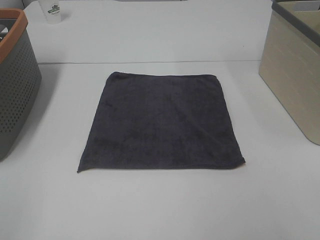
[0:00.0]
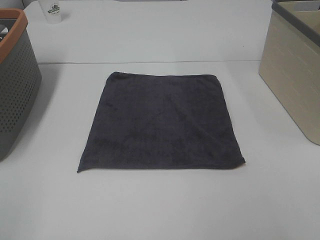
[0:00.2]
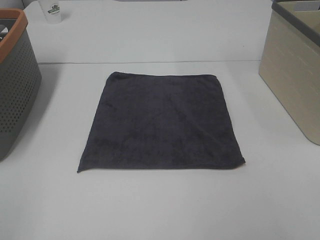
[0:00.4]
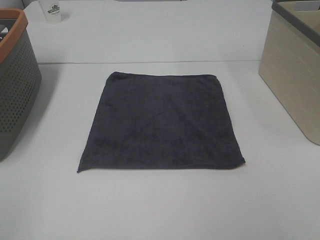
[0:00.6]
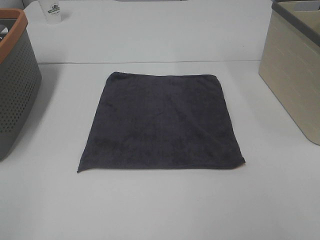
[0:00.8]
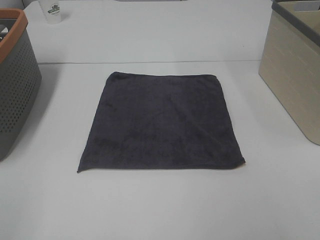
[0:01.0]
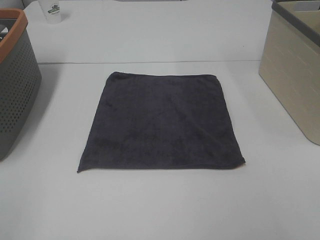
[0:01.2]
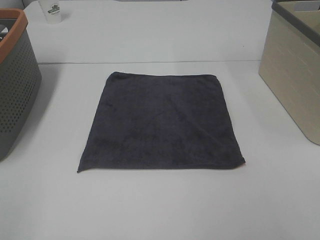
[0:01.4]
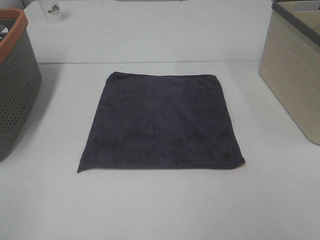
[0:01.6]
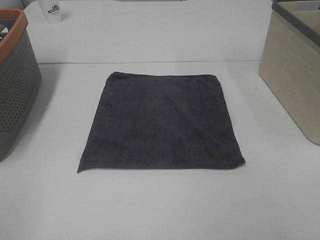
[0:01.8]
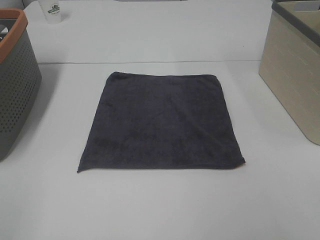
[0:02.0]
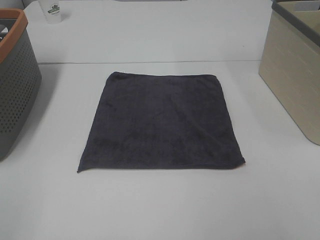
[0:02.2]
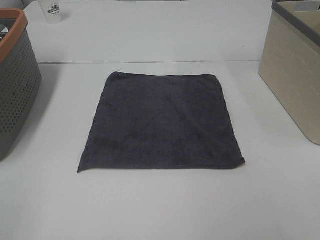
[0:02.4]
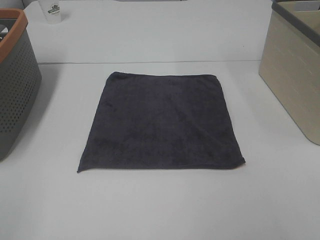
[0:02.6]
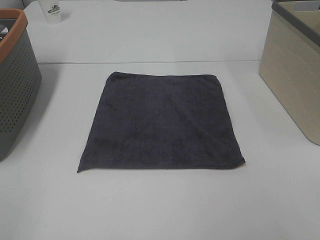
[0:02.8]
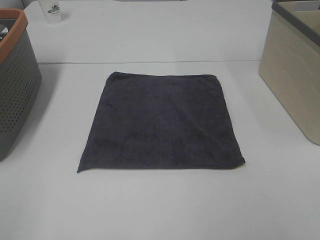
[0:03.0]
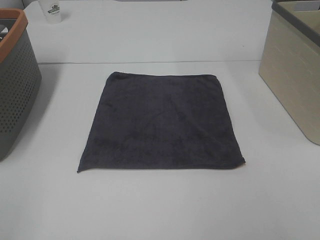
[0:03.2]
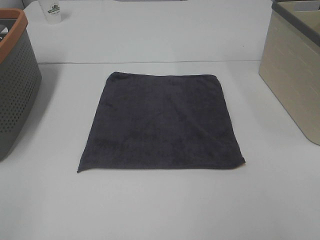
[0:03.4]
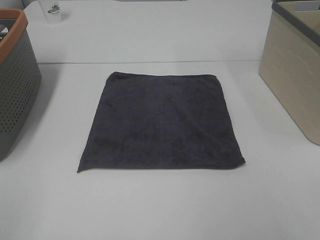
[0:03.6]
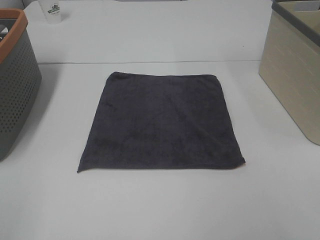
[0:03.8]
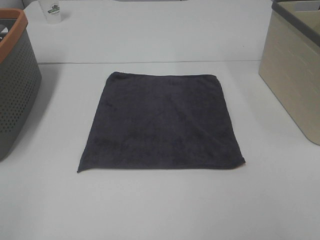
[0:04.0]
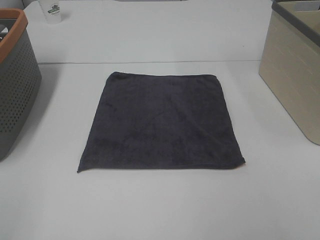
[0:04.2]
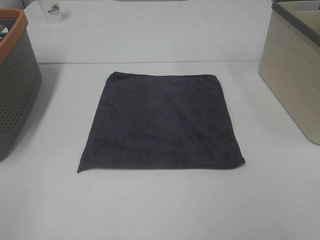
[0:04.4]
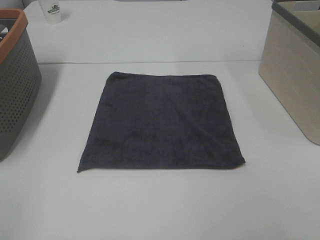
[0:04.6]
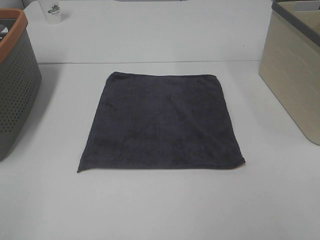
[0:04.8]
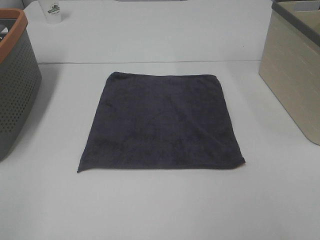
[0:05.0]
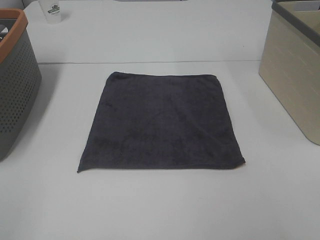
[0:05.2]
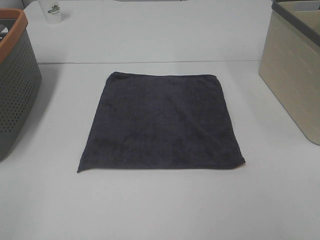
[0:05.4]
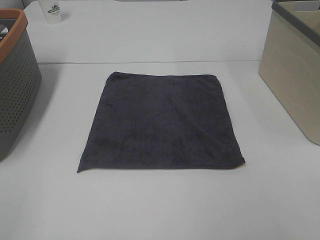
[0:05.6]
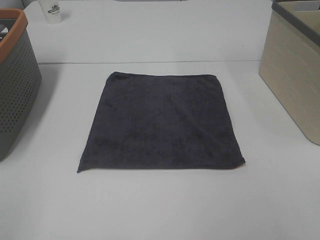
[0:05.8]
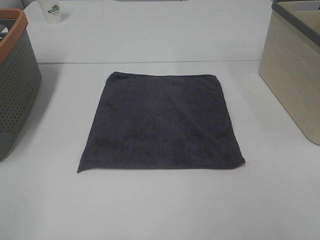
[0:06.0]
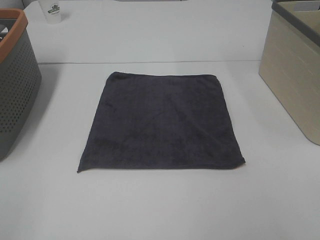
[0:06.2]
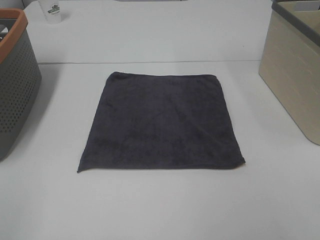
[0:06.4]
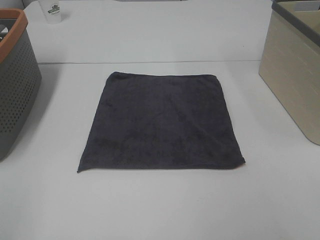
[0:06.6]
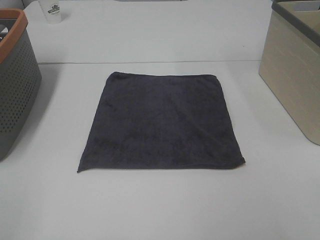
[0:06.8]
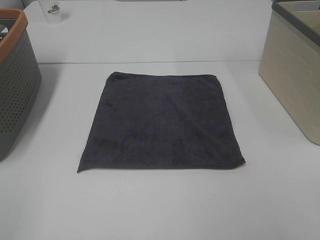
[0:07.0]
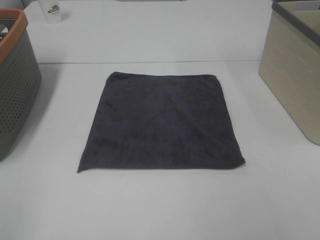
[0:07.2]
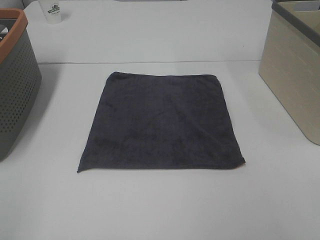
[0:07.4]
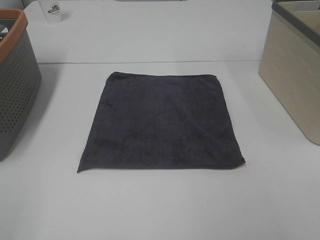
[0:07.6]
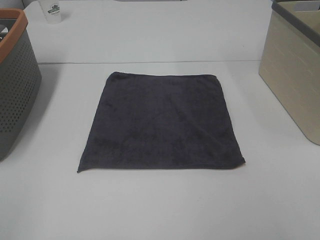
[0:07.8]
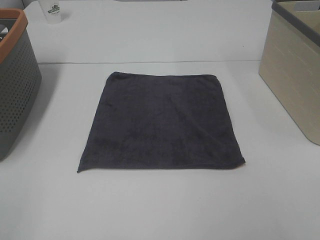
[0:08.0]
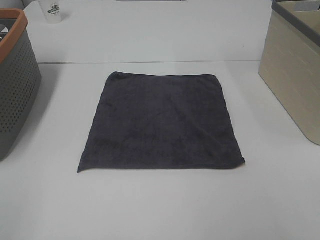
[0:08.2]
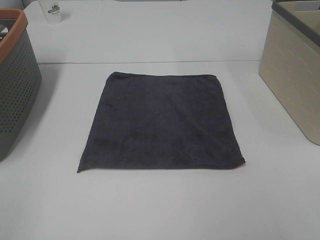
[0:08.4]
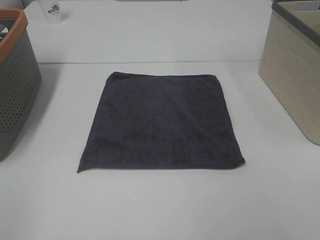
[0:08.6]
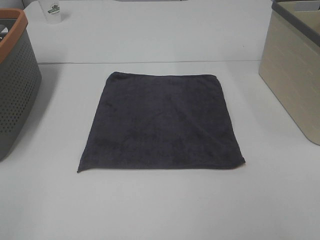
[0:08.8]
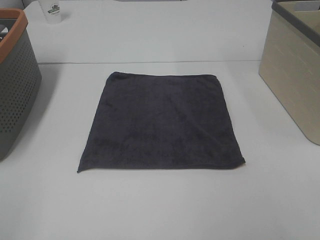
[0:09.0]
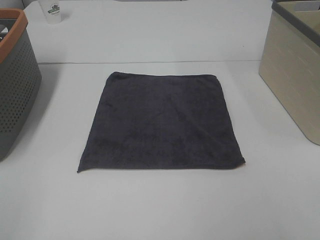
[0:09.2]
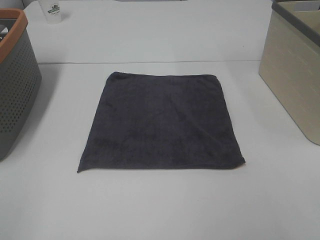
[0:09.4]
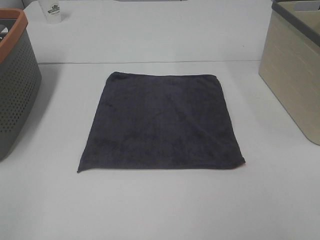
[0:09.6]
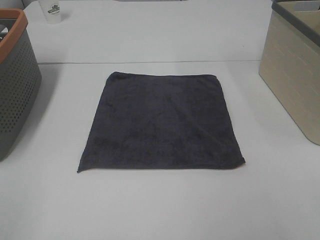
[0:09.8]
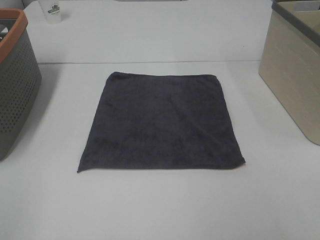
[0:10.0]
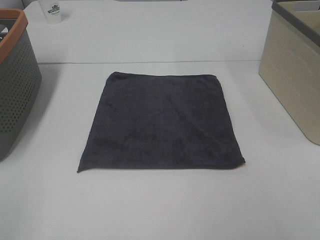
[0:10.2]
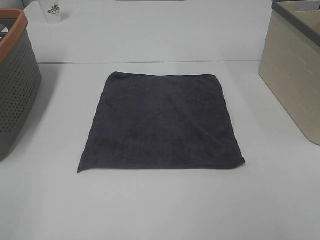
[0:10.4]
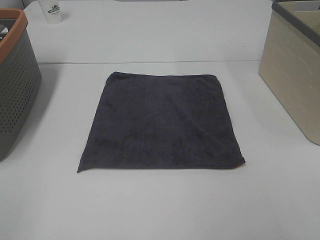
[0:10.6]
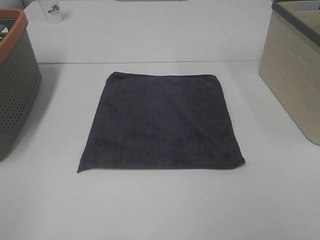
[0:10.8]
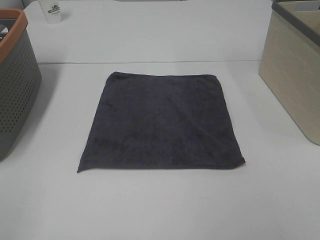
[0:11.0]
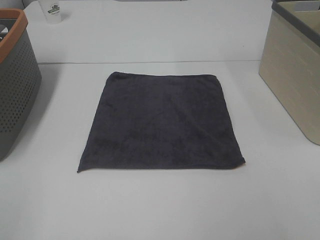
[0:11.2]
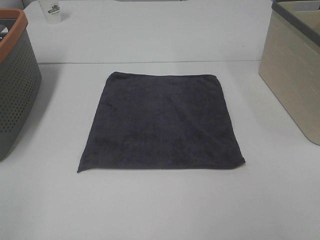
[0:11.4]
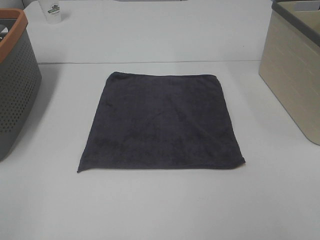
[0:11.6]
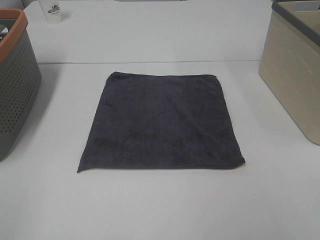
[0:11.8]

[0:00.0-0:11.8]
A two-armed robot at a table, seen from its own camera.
Task of the whole recording: Remove the towel and place it.
0:00.0 to 0:11.8: The two grippers keep their place.

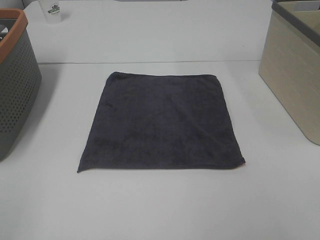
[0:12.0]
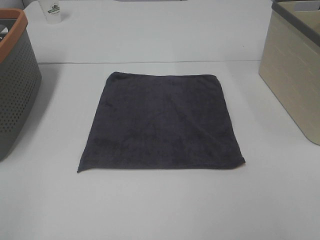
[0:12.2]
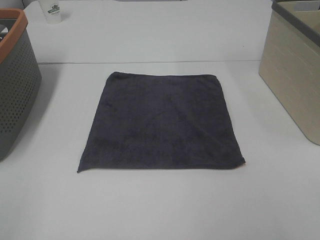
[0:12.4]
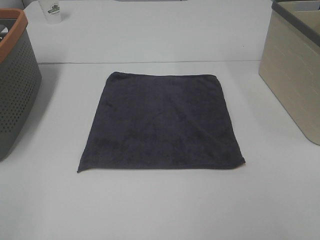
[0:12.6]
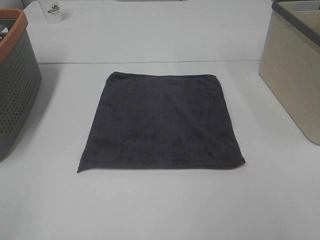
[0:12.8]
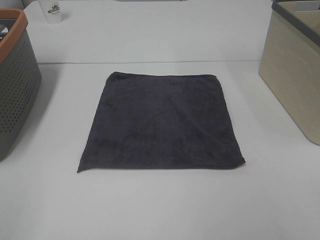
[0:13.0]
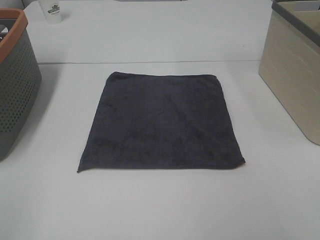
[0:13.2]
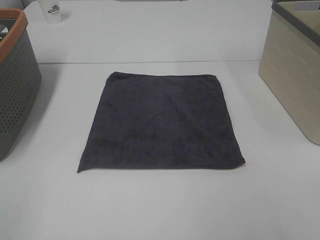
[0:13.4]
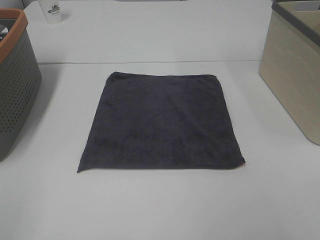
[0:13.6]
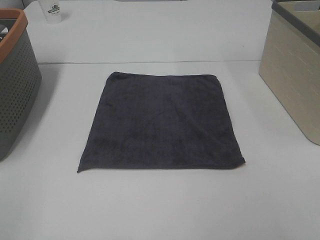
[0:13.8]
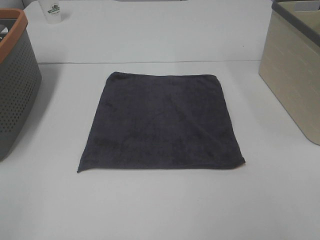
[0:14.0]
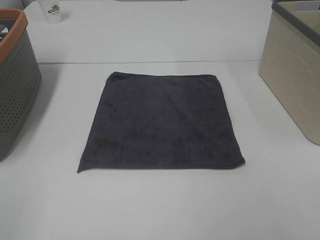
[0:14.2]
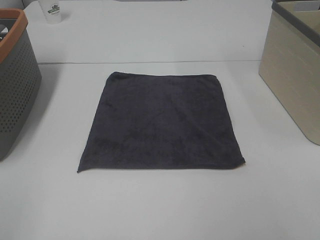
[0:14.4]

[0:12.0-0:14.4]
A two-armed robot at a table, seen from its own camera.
Task of the whole recording: Remove the towel and place it.
0:12.0 to 0:14.4: Both grippers stay put.

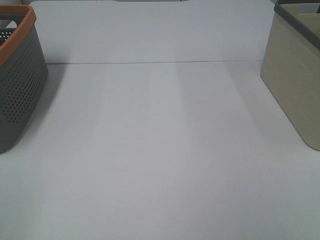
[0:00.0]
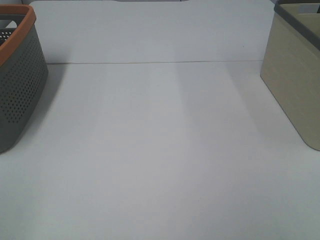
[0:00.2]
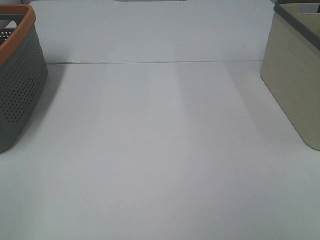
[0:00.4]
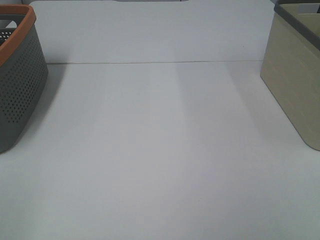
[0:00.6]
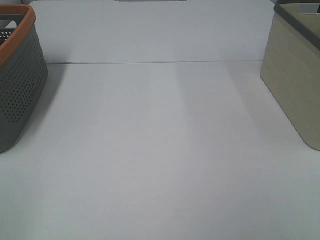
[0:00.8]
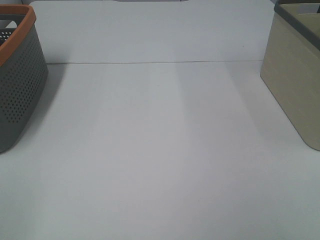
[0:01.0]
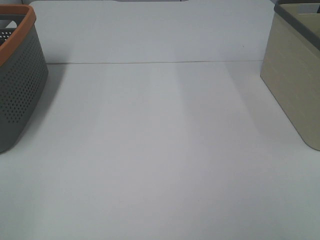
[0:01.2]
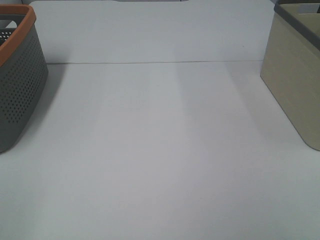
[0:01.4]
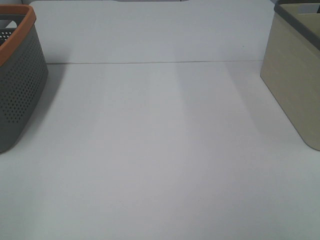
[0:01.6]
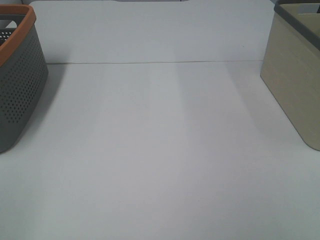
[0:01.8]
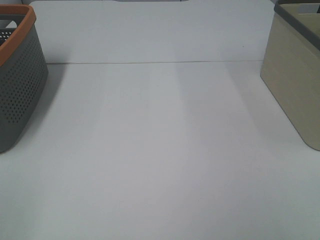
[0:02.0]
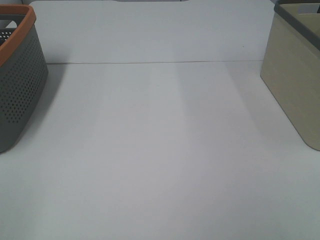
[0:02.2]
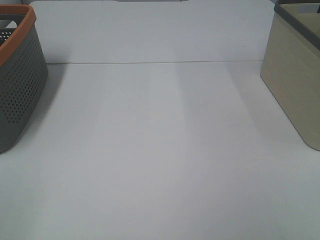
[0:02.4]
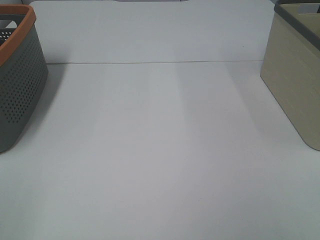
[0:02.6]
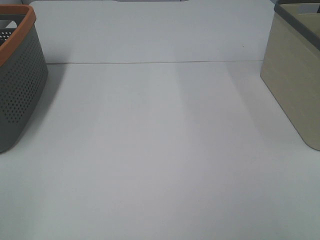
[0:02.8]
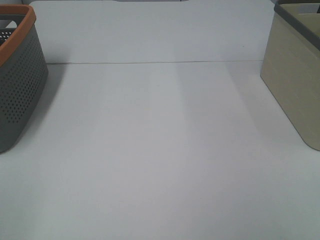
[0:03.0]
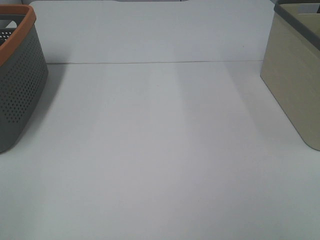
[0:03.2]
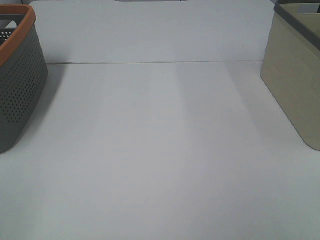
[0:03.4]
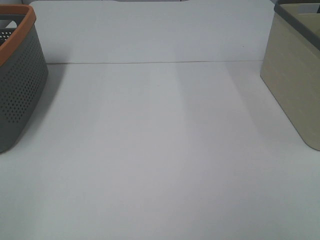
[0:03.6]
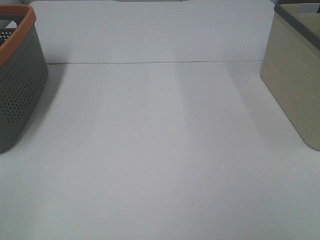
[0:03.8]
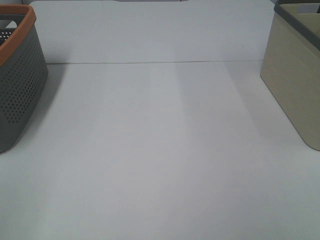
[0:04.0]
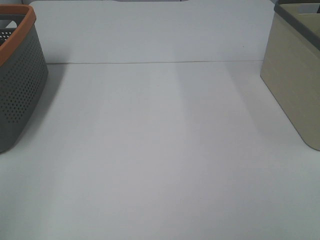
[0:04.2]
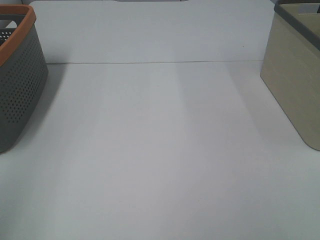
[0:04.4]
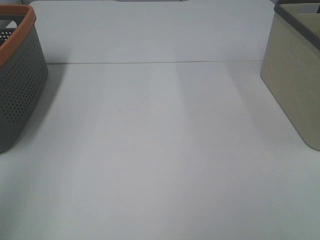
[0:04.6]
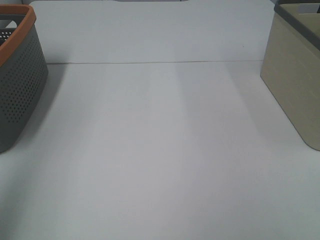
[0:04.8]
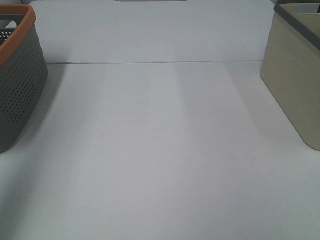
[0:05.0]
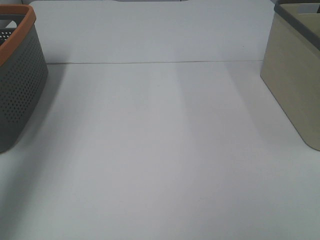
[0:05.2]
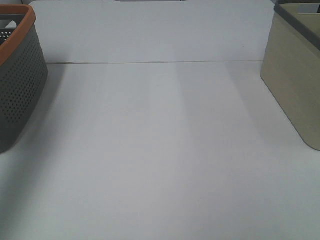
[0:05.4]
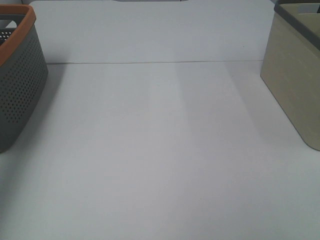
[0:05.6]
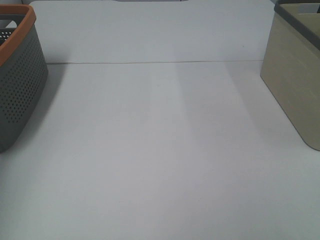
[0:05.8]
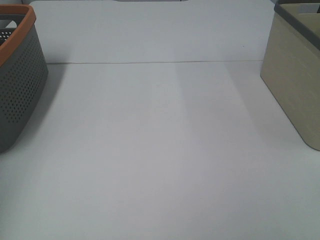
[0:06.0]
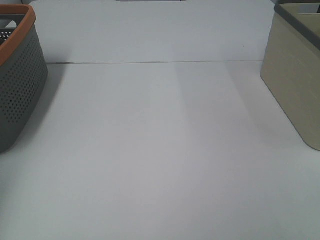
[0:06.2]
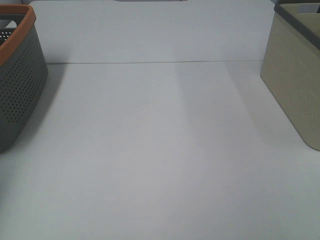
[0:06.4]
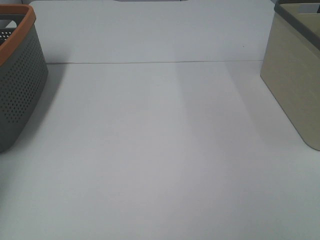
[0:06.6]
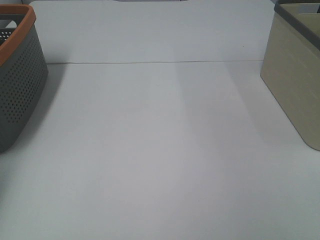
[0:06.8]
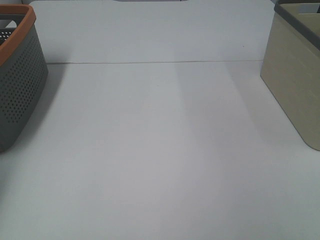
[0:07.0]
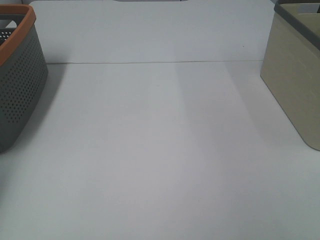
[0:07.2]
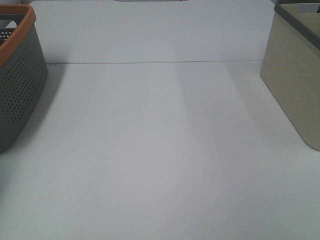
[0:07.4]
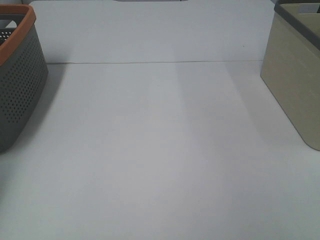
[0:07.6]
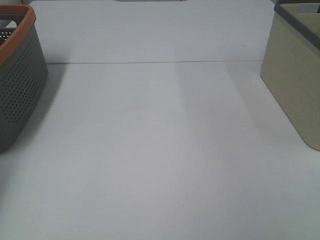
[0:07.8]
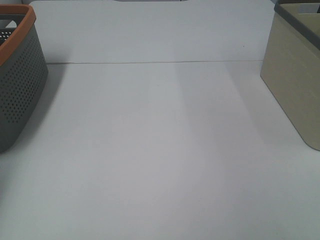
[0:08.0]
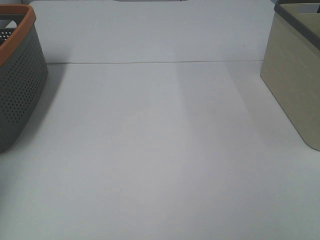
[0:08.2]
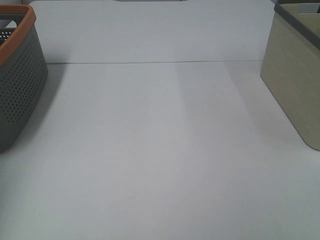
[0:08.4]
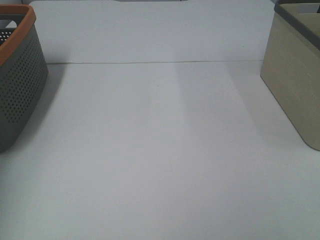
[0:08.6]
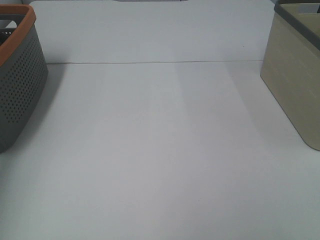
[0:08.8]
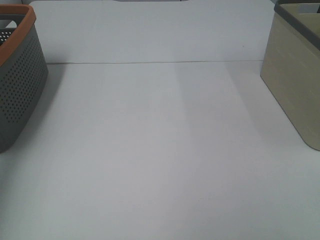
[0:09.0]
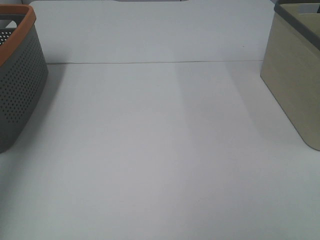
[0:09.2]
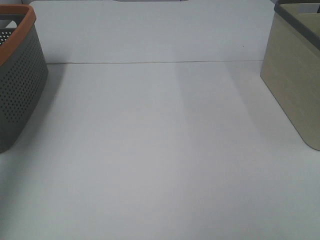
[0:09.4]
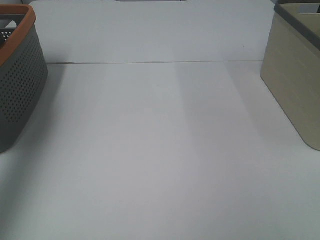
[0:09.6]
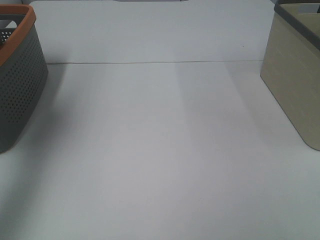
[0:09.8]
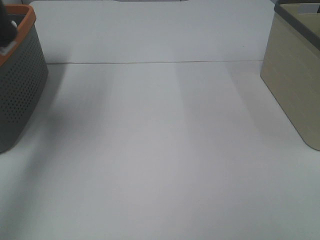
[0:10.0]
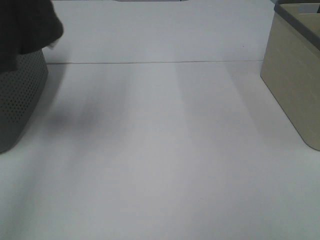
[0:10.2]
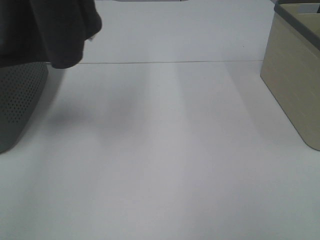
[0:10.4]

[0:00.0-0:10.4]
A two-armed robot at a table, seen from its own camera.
Task of the whole recording: Remove the towel and place it.
0:00.0 to 0:03.0: Both grippers stay put.
0:09.0 to 0:10.4: The left gripper is displaced to the right and upward by some 20 cm.
